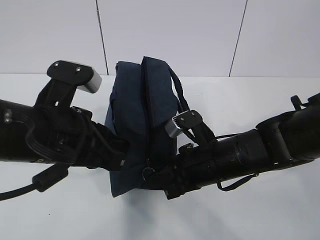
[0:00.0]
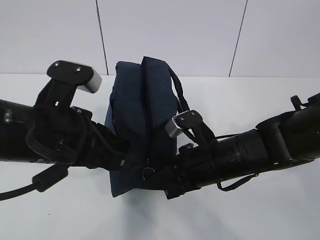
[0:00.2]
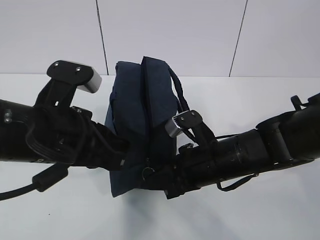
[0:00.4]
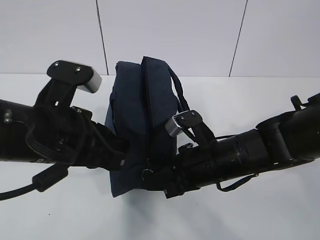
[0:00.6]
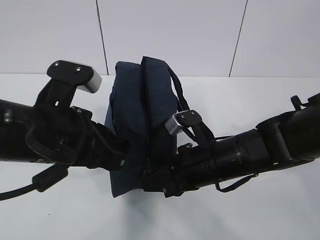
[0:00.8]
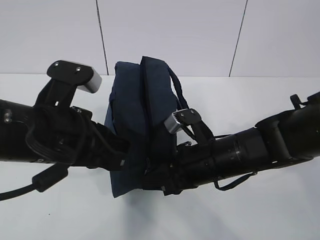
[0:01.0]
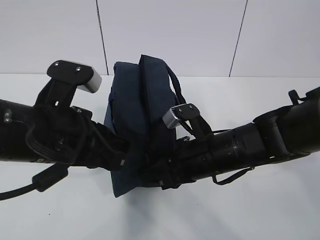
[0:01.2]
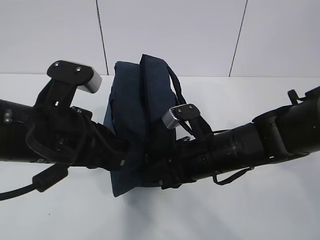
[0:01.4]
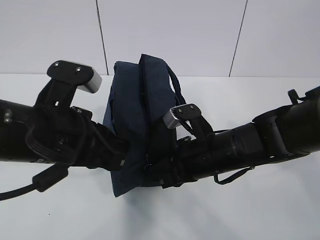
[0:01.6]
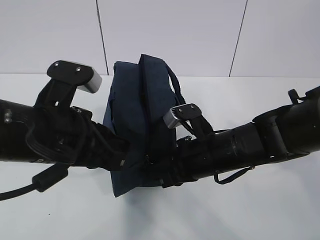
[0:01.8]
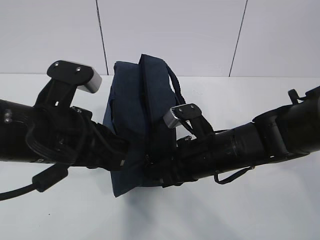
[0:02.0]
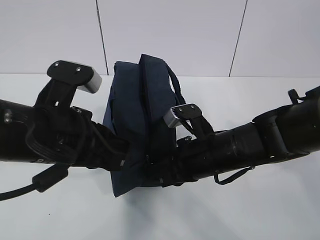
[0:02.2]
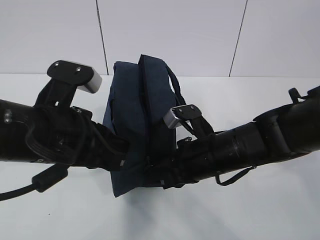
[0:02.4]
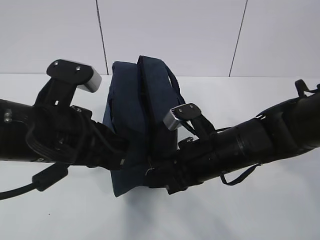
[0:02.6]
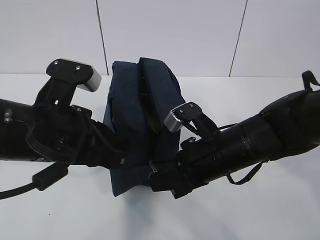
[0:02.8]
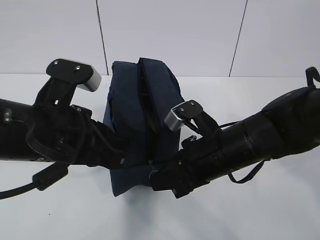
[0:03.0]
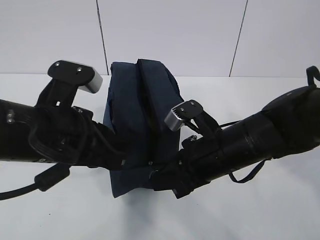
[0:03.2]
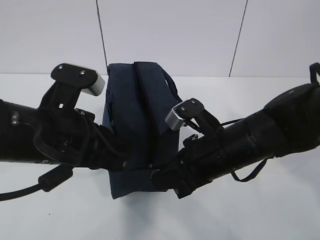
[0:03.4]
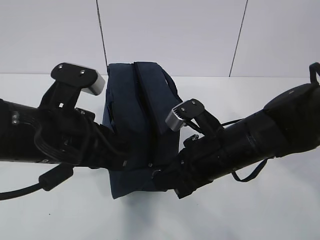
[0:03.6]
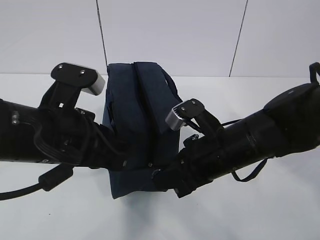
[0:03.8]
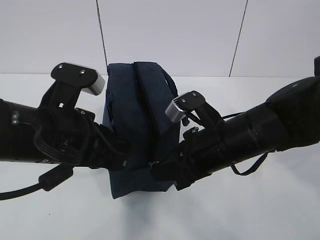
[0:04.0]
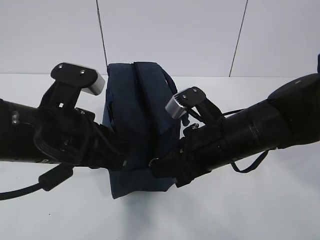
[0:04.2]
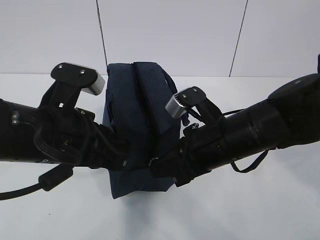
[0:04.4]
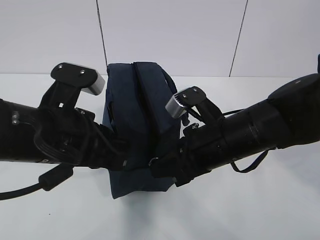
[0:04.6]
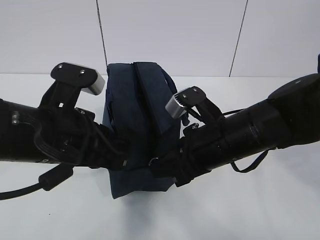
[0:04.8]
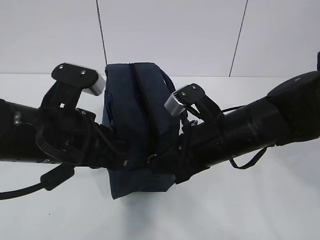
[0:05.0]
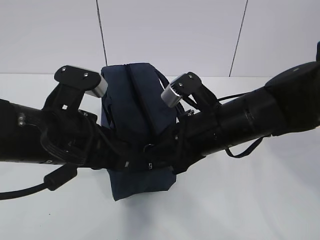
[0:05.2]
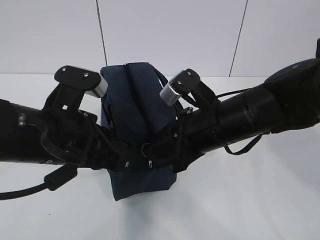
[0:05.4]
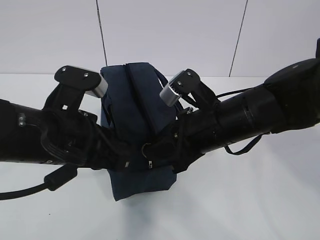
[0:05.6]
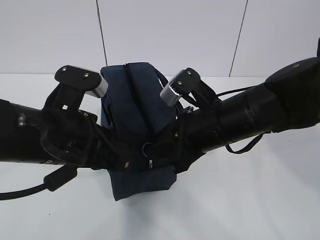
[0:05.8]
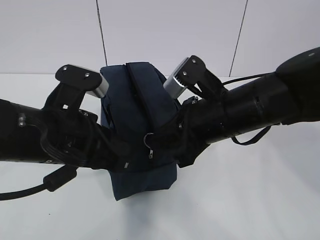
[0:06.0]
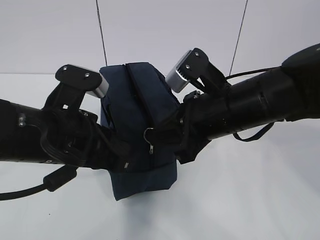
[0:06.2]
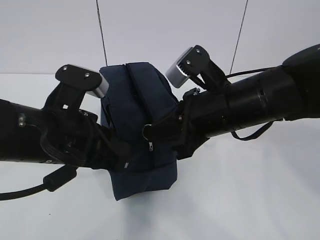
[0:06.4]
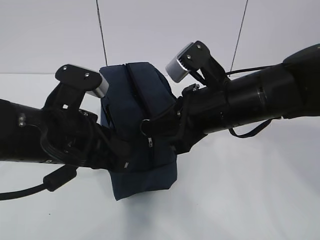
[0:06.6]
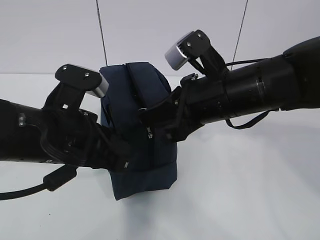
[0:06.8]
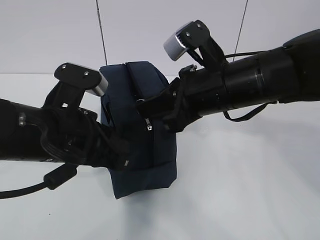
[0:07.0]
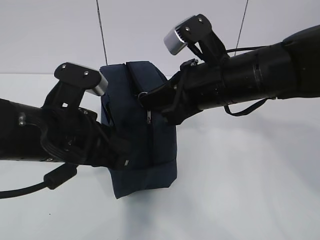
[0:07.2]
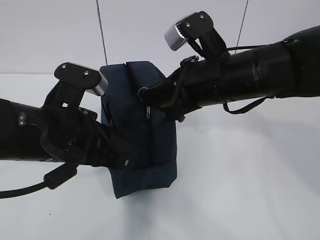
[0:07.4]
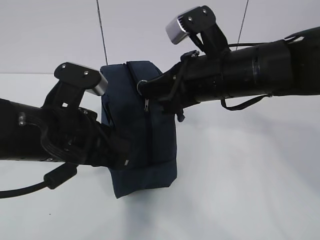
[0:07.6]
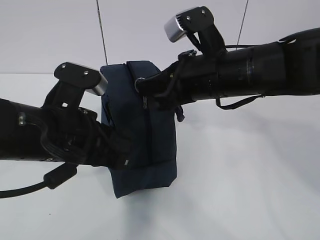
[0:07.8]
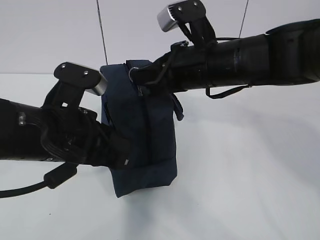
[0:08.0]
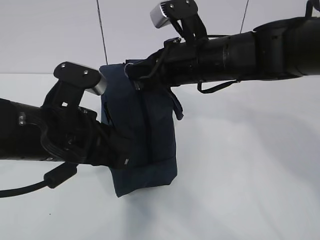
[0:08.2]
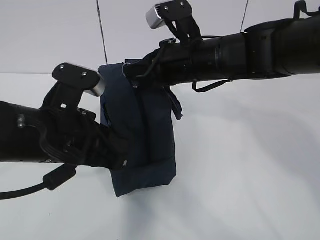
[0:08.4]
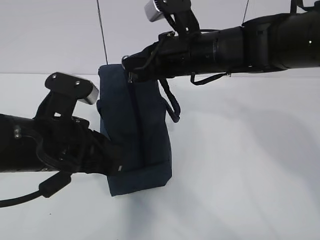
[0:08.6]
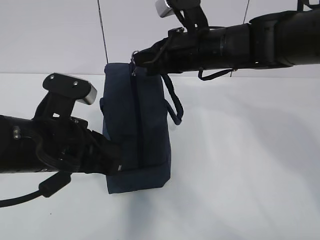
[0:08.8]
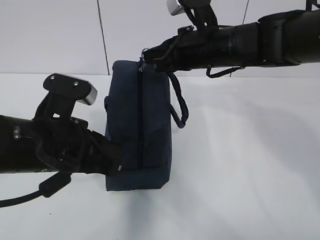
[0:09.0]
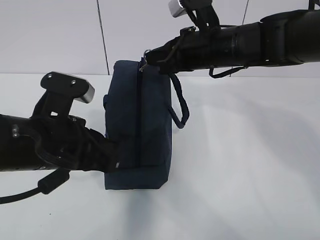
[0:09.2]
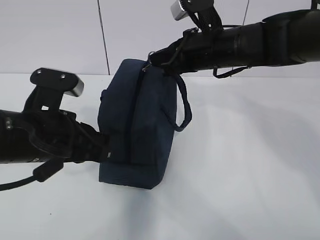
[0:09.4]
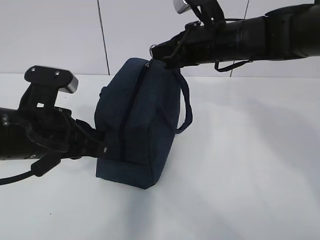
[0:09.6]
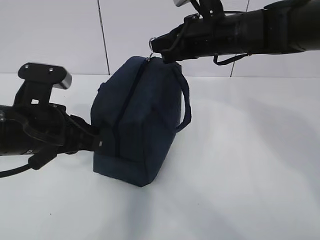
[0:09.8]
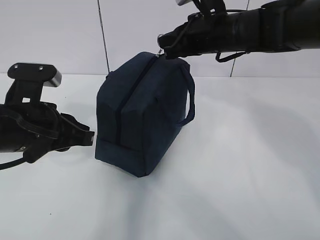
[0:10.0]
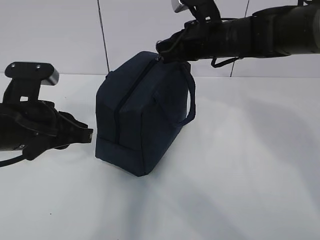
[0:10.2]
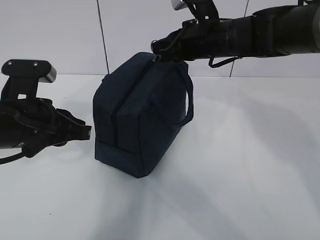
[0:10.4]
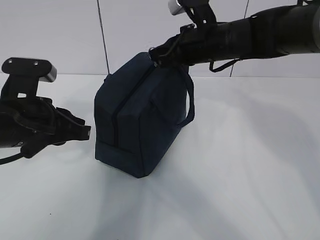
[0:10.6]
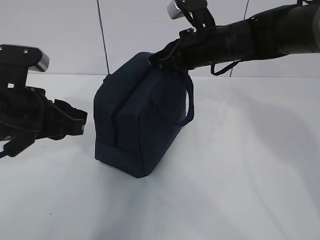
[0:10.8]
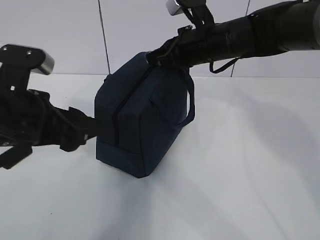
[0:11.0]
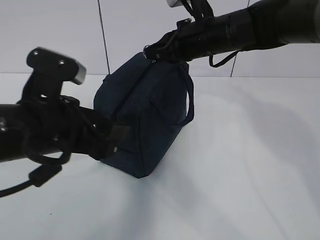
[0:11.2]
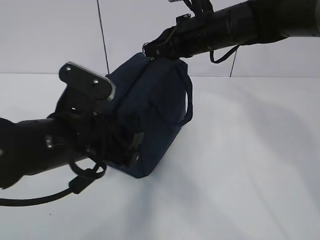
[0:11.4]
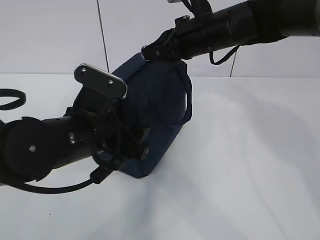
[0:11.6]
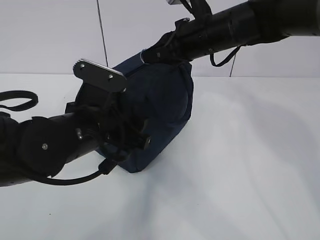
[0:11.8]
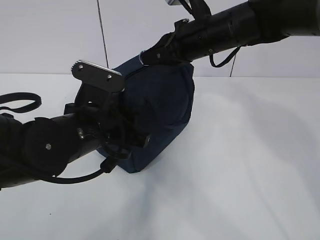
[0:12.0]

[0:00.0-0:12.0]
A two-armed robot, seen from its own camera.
Step, 0:00.0 to 0:03.0: Pull the zipper with your right hand.
Step, 0:03.2 to 0:04.4: Grab the lunch bag with your left hand.
0:00.0 to 0:01.6: The two grippers keep their place.
0:01.6 to 0:04.4: The grippers make only small movements.
0:04.4 to 0:06.0: There are only small adjustments of the grippers.
0:06.0 to 0:07.6: The right gripper changes place by some 5 cm.
0:07.6 to 0:09.0: The right gripper heads forward, covering about 10 cm.
0:09.0 to 0:10.4: The left gripper moves some 5 cm.
0:10.4 to 0:12.0: The left gripper shifts some 10 cm to the right, and opens up.

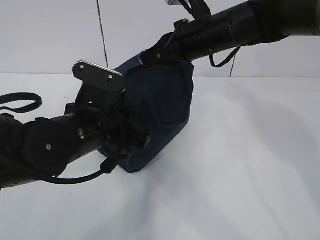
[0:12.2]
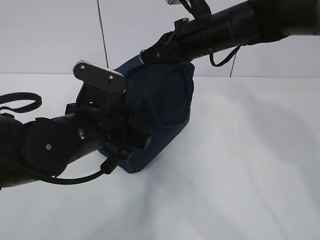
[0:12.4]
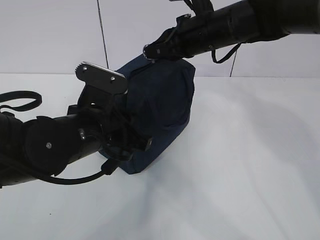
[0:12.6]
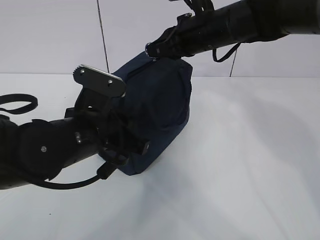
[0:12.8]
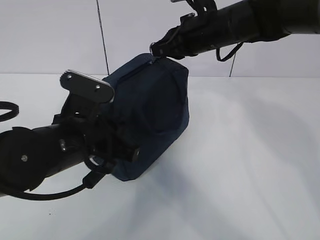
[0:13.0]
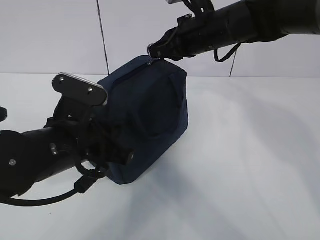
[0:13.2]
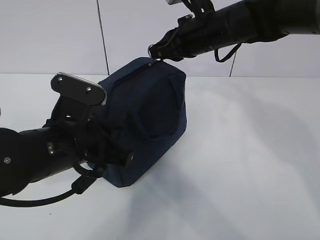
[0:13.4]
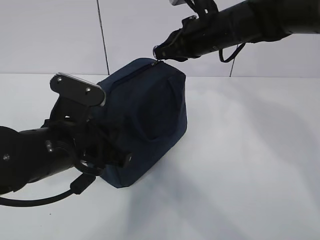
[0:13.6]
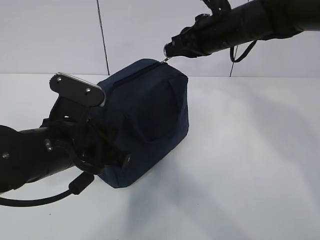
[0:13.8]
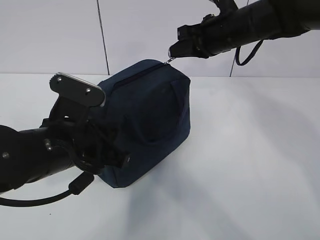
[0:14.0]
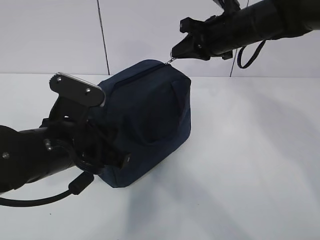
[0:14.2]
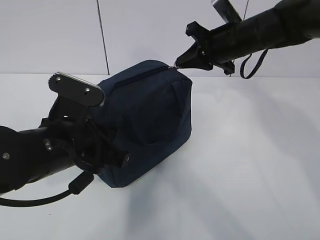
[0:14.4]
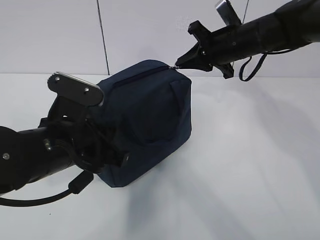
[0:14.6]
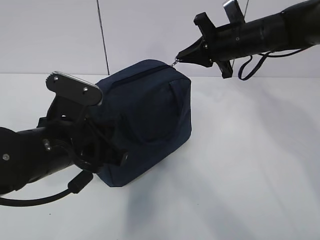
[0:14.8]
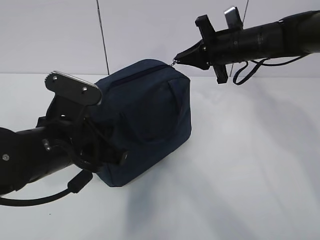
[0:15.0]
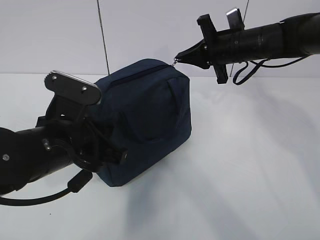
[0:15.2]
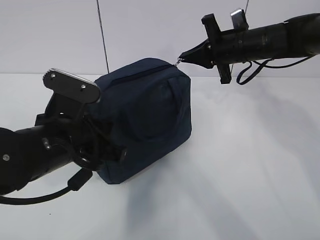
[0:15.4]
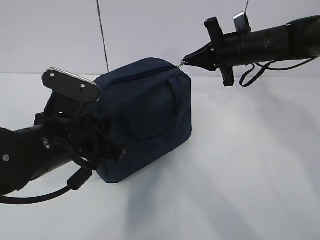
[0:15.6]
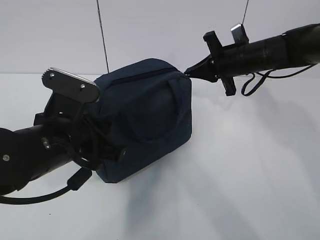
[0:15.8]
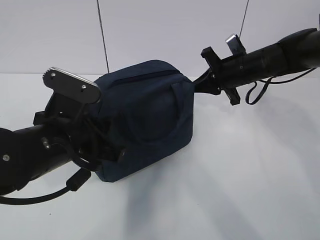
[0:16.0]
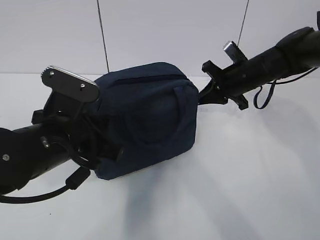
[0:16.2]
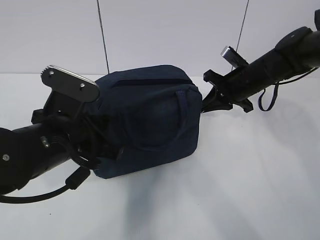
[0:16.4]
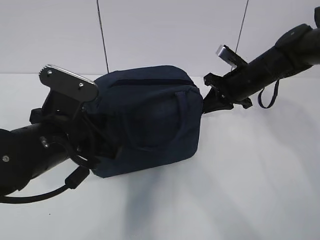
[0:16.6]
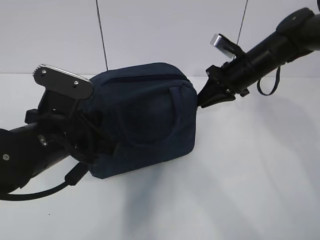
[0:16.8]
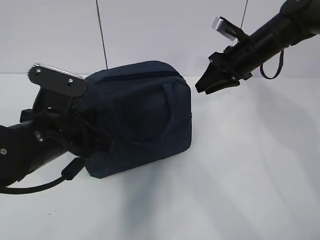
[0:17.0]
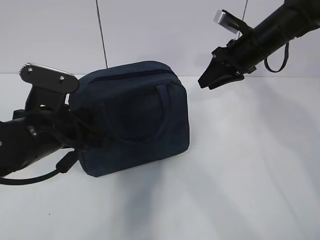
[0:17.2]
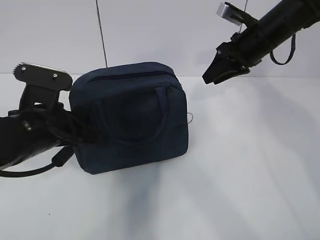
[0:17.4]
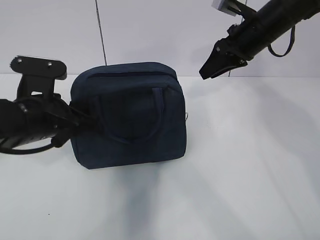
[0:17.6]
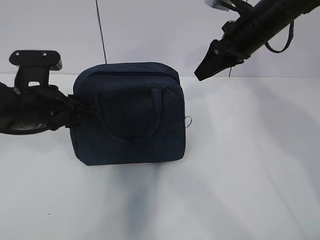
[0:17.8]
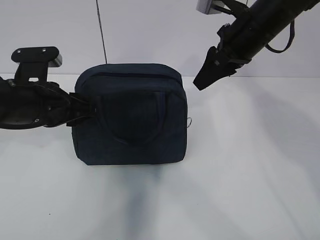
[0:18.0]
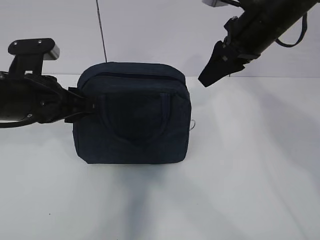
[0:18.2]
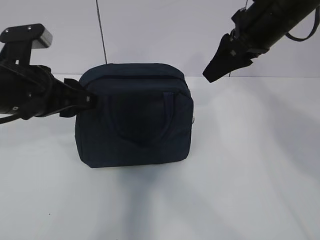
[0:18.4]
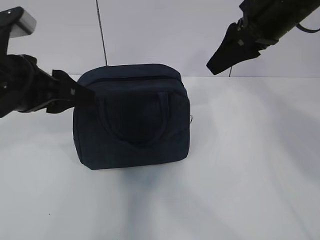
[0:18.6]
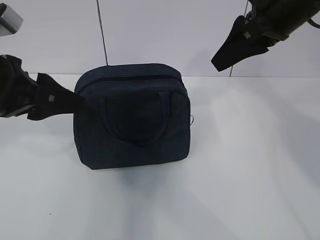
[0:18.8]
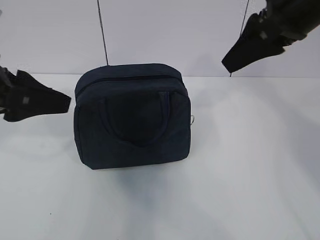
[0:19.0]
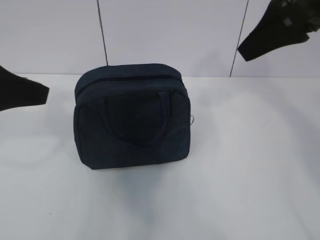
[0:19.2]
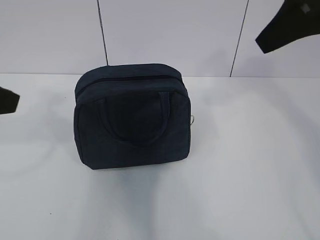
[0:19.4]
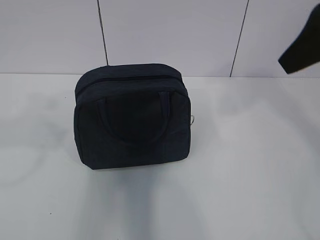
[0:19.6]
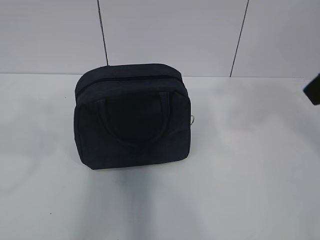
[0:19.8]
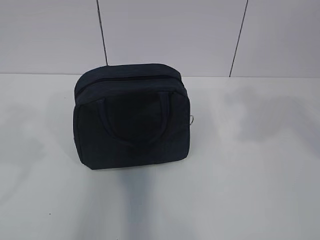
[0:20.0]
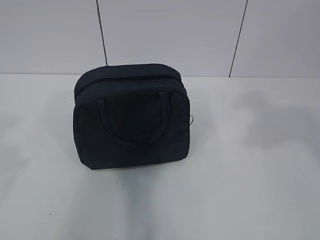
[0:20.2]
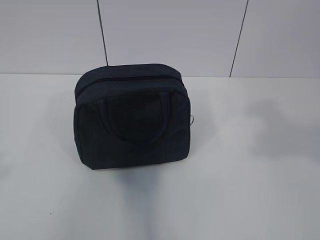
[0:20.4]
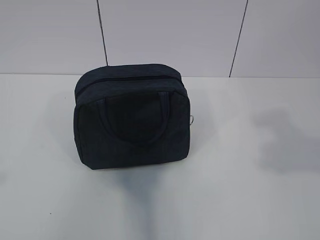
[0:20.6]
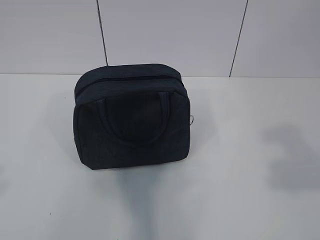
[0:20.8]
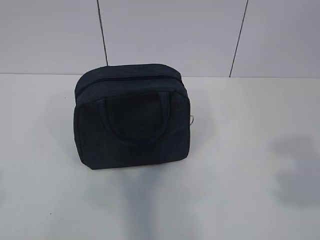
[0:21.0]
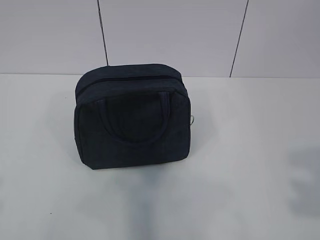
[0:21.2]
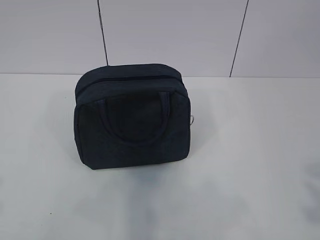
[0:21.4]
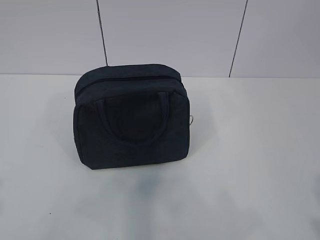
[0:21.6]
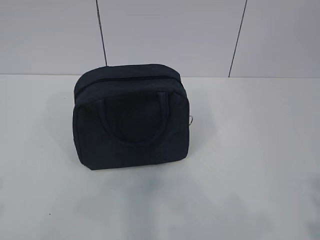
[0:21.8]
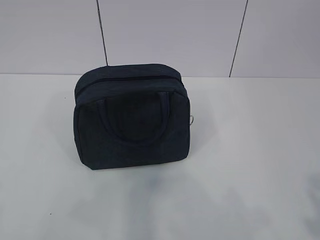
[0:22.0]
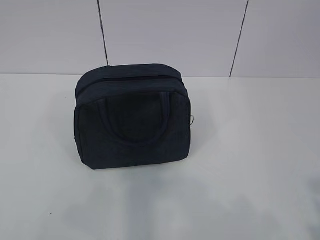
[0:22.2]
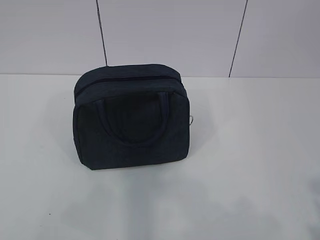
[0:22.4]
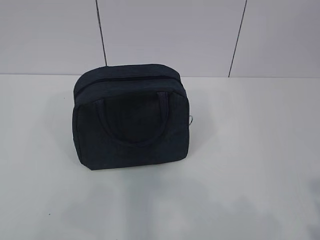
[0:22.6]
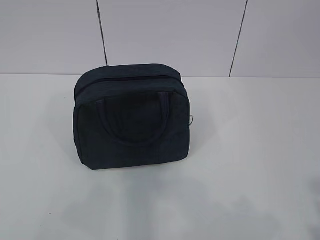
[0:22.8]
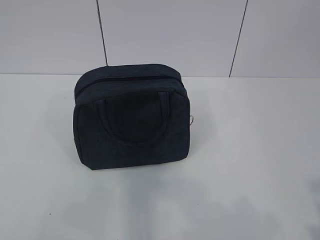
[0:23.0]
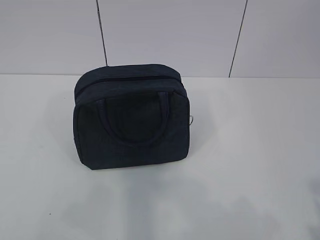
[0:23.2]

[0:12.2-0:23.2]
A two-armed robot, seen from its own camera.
0:12.2 to 0:13.8: The grippers move only a little.
0:13.8 to 0:15.4: The right gripper moves to the right, some 5 cm.
0:15.4 to 0:17.0: The right gripper opens its fingers.
0:17.0 to 0:18.4: The right gripper goes approximately 15 cm upward and backward; the left gripper is displaced upward by some 5 cm, and opens its fingers.
0:18.4 to 0:20.0: The right gripper moves backward, roughly 20 cm. The left gripper goes about 20 cm backward, to the left and upward.
0:20.0 to 0:21.6: The right gripper travels backward by about 20 cm, while the left gripper shifts some 10 cm backward.
